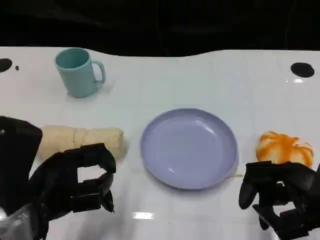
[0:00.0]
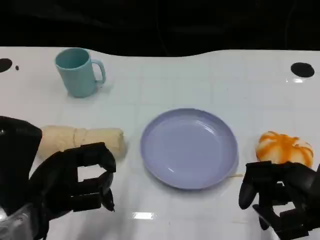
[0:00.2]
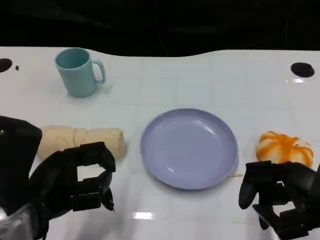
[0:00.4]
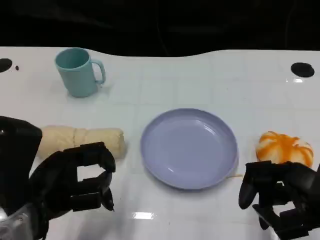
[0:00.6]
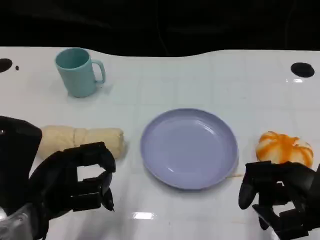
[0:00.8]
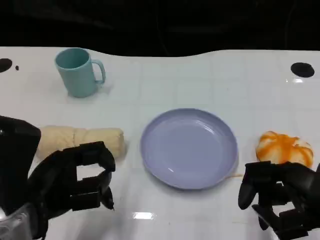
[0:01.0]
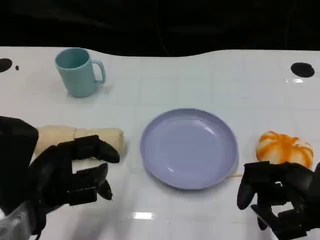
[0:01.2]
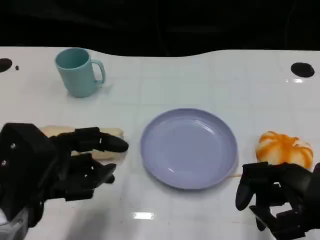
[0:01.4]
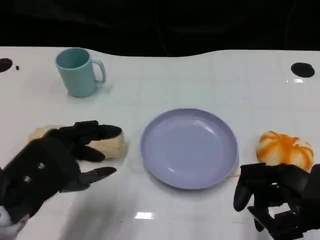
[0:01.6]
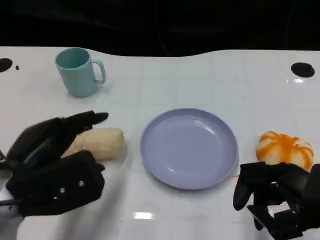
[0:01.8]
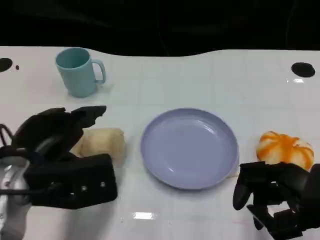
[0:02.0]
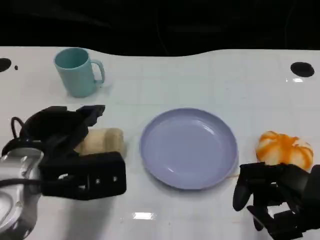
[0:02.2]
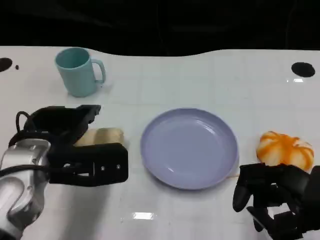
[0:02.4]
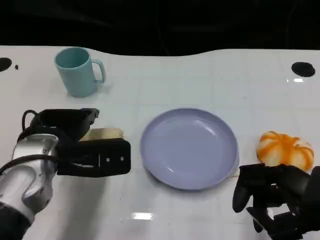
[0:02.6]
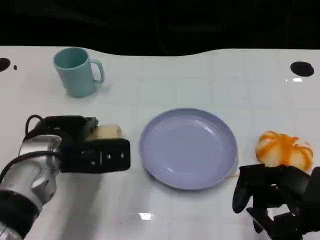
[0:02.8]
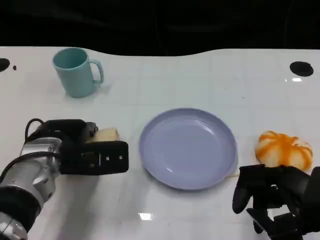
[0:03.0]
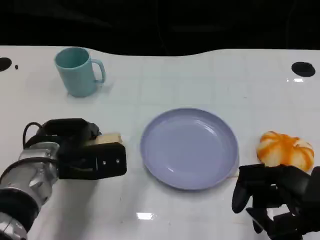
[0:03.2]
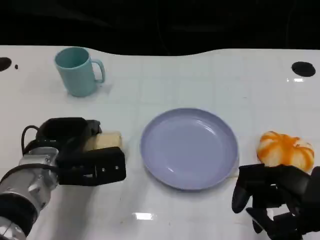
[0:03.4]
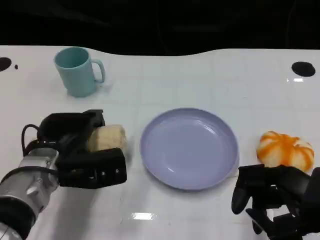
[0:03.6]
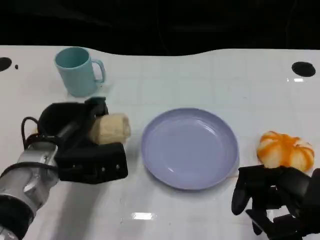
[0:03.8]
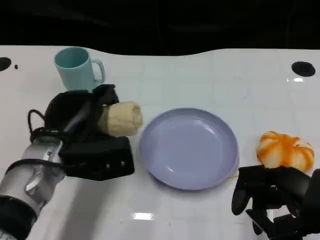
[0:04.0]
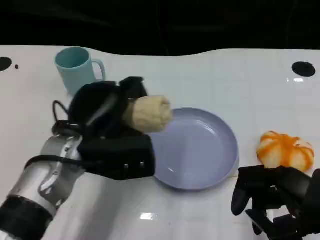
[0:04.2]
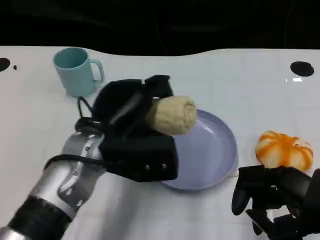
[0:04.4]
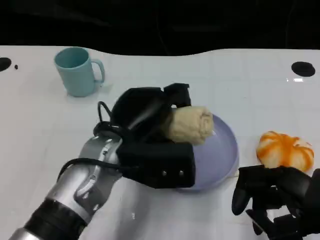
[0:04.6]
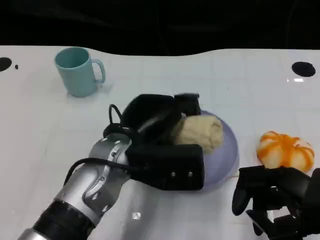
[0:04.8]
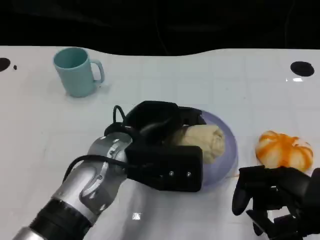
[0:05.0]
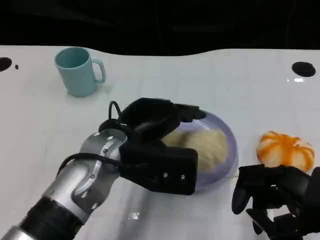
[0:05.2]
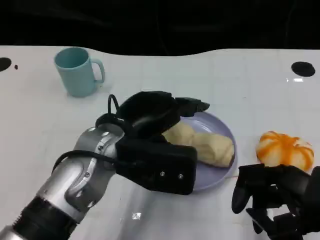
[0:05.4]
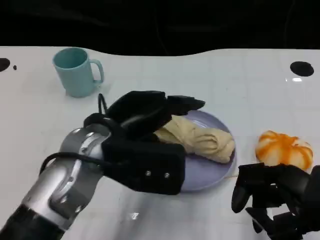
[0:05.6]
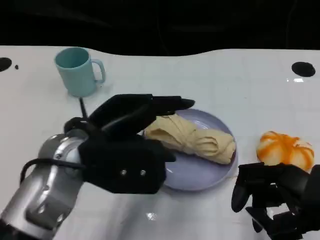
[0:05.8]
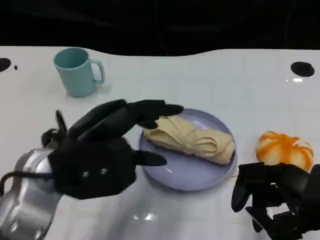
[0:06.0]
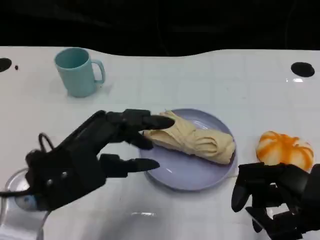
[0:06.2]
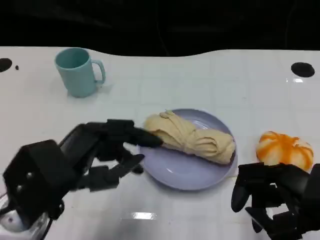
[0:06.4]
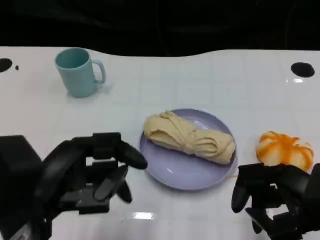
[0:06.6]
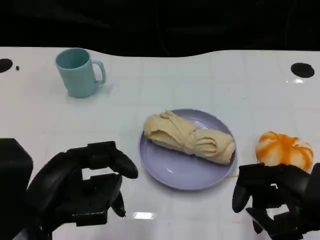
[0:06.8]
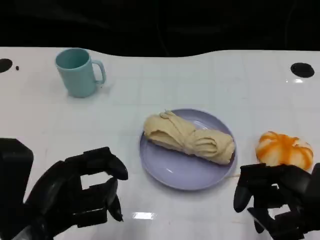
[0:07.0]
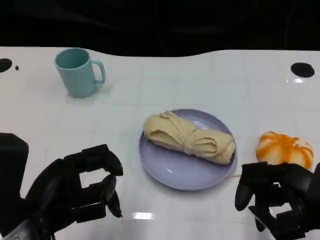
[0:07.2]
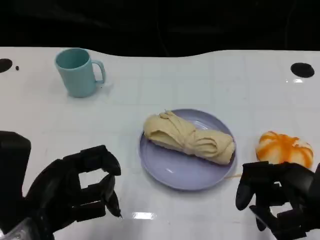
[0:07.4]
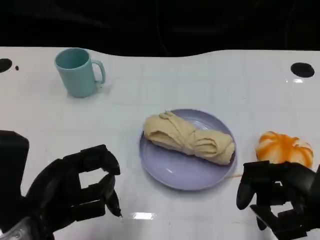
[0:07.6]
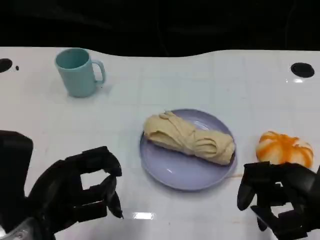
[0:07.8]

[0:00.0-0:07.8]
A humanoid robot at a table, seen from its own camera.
Task of the whole recording: Grasp the towel on the left side of the plate with the left hand and place it into the plate.
0:01.6 to 0:03.2: The left hand goes roughly 10 cm forward and downward.
0:03.2 to 0:04.6: The left hand moves to the right and upward, about 10 cm.
0:04.6 to 0:06.2: The left hand travels to the left and backward by roughly 10 cm.

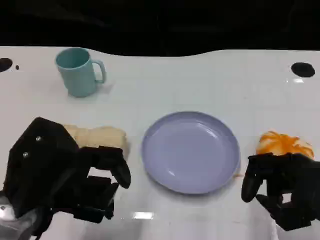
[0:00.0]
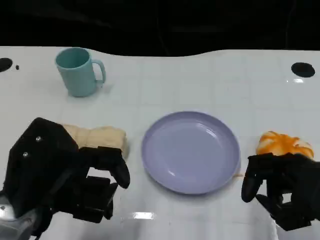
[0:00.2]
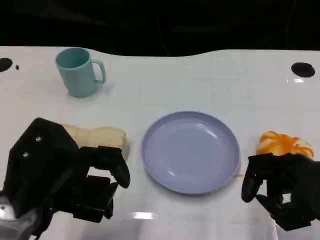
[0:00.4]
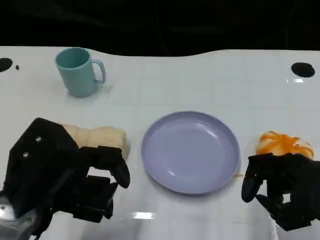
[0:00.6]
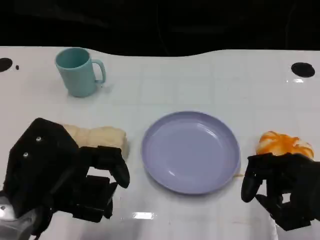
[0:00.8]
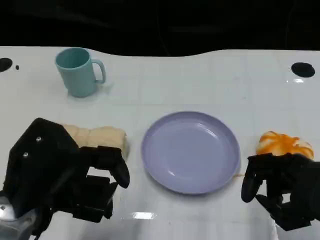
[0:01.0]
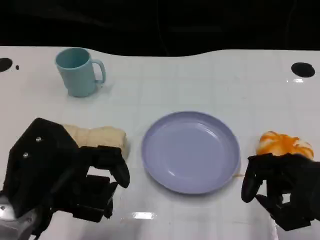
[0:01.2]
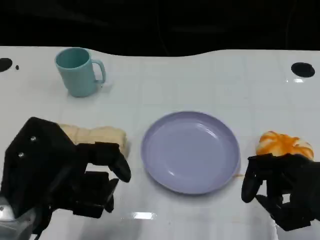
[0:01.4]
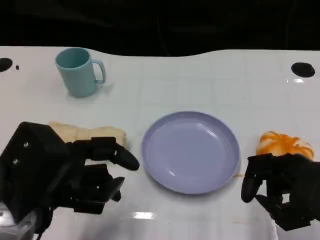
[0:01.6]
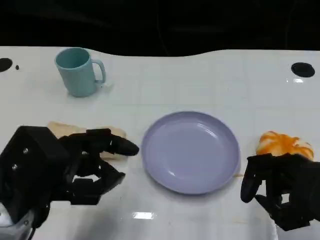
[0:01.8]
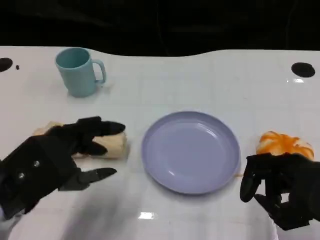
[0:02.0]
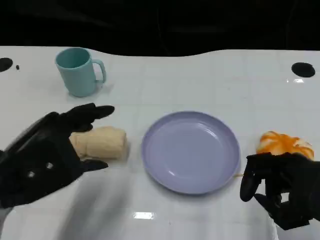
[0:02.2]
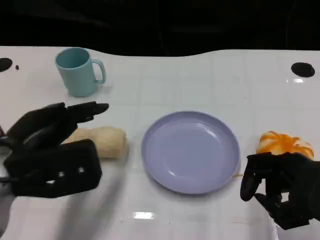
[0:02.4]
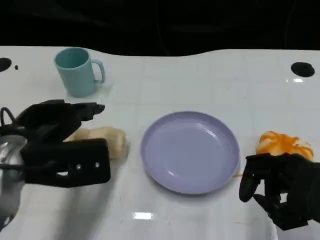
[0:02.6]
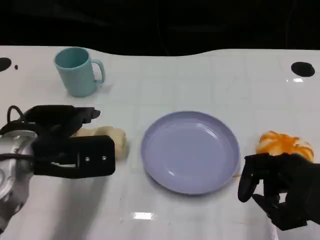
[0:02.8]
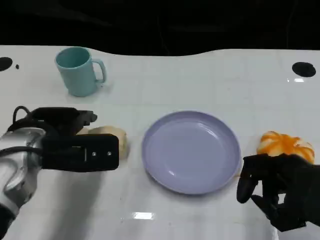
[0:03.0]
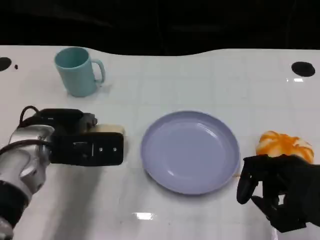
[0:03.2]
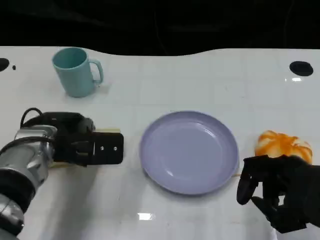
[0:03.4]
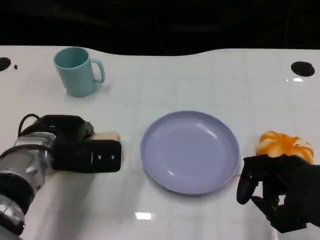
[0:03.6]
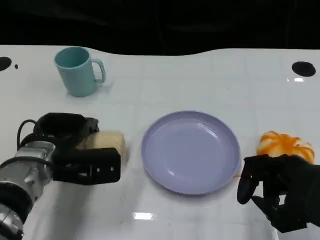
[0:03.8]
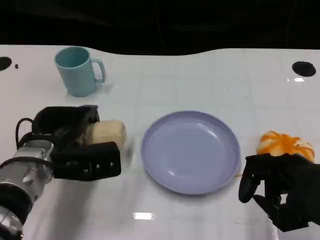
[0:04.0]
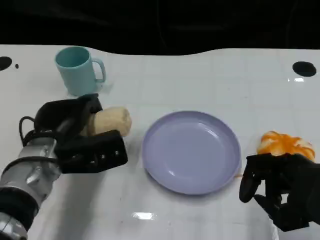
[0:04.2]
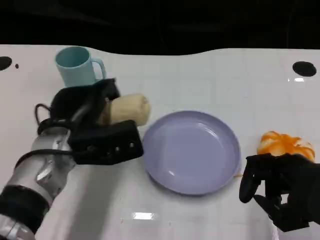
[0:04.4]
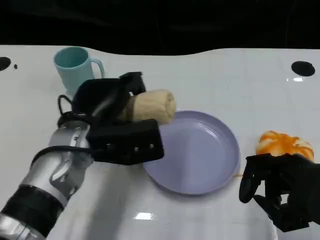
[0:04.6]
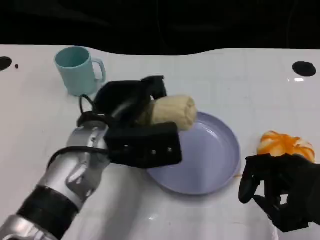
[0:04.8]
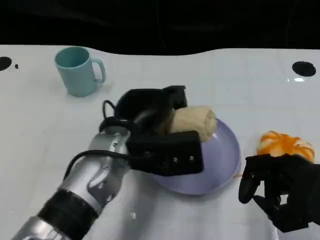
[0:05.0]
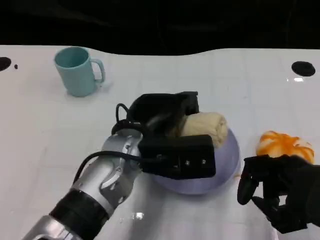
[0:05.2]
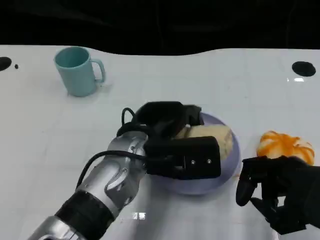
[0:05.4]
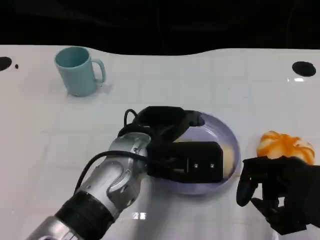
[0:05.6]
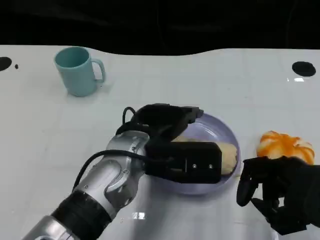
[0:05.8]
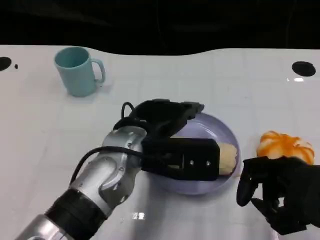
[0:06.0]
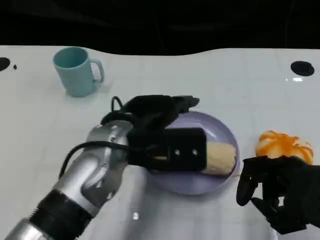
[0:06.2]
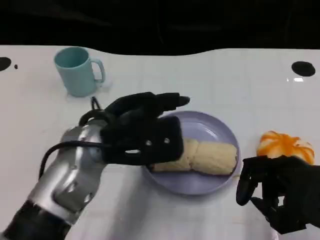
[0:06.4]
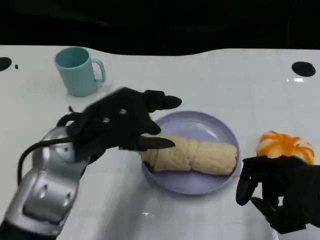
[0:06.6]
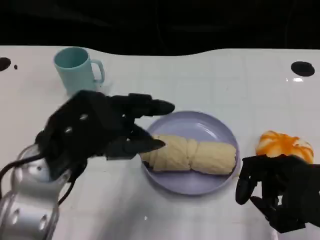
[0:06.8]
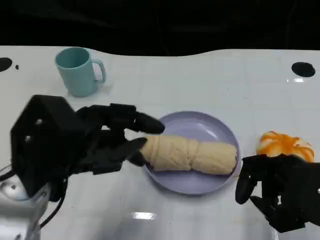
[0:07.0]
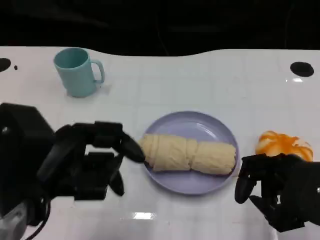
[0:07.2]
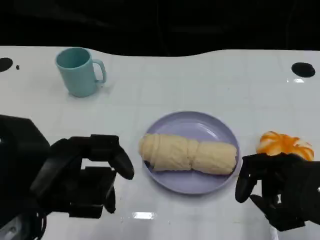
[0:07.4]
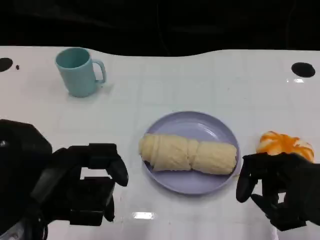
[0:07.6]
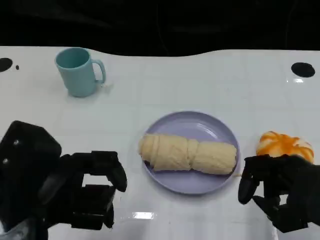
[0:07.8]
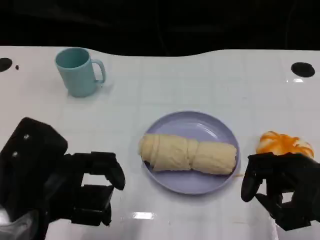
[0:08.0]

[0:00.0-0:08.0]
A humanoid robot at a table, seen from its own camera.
Task of the whole recording: Grasp the towel on the left side of the plate with the left hand and place it into the plate.
0:00.0 to 0:01.6: The hands stay close to where they were, moving slightly.
0:01.6 to 0:03.2: The left hand moves forward, about 10 cm.
0:03.2 to 0:04.8: The left hand goes some 10 cm to the right.
0:06.4 to 0:08.0: The left hand goes some 10 cm to the left and backward.

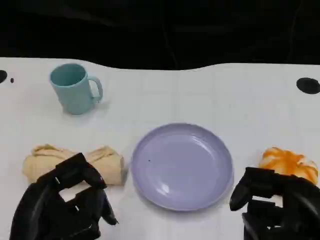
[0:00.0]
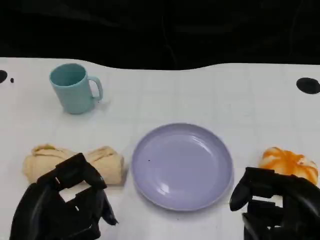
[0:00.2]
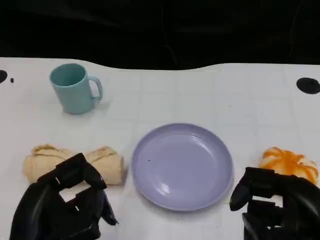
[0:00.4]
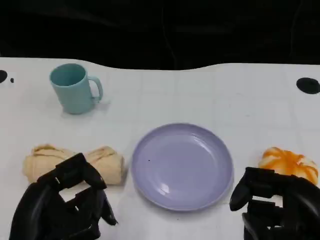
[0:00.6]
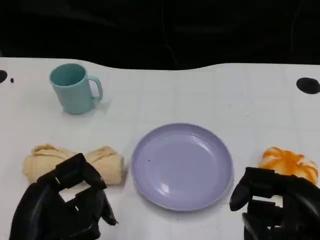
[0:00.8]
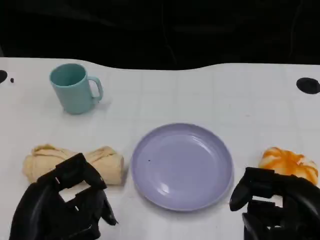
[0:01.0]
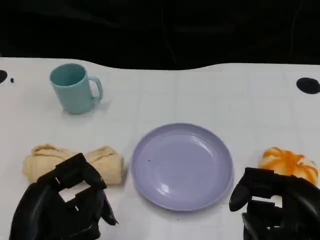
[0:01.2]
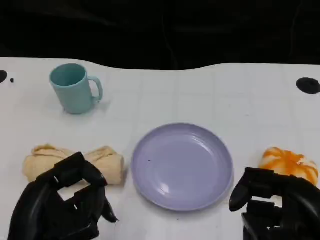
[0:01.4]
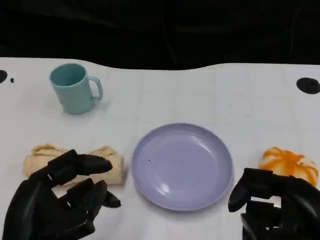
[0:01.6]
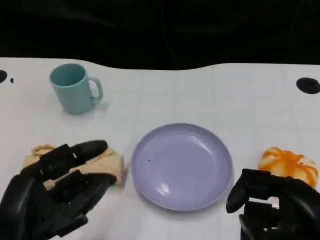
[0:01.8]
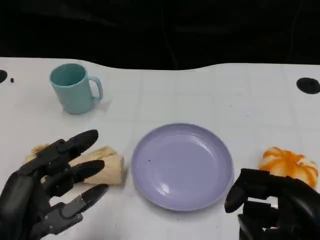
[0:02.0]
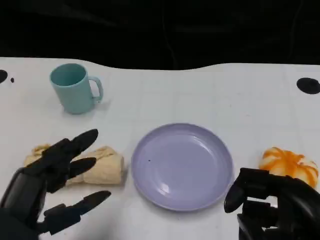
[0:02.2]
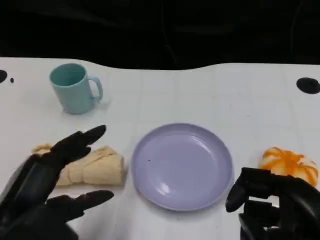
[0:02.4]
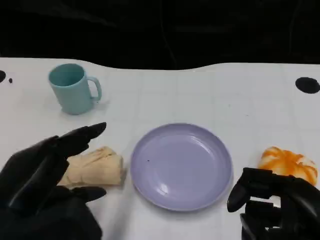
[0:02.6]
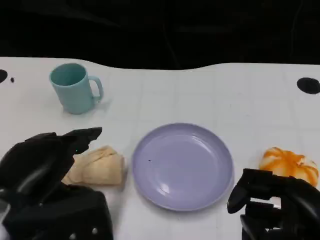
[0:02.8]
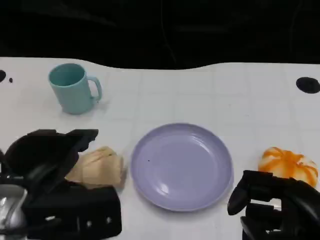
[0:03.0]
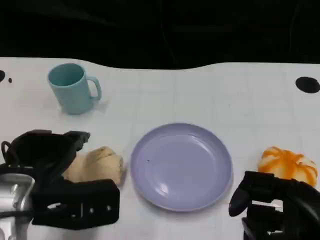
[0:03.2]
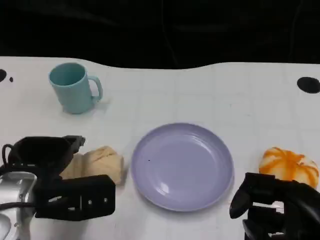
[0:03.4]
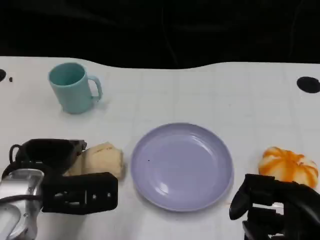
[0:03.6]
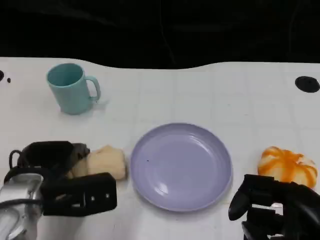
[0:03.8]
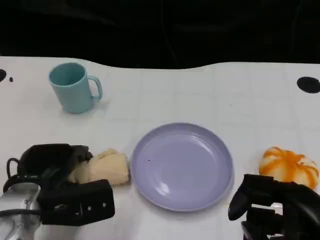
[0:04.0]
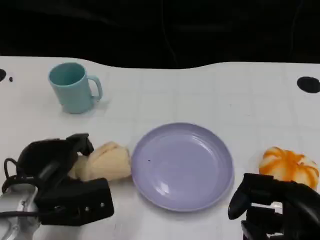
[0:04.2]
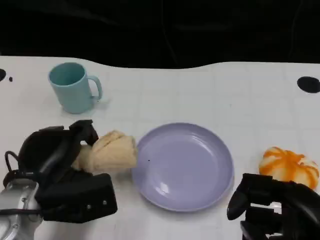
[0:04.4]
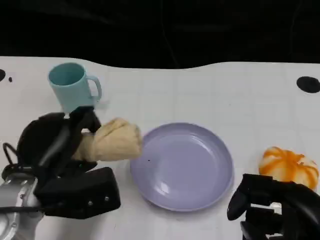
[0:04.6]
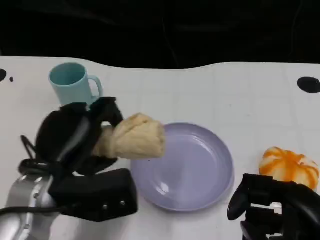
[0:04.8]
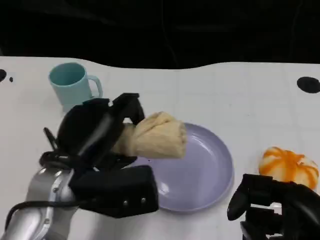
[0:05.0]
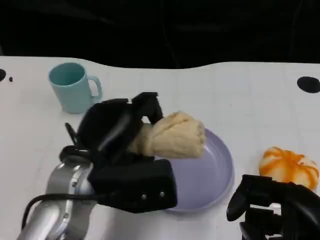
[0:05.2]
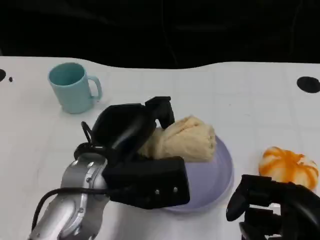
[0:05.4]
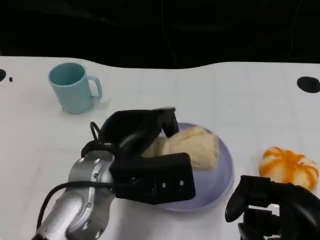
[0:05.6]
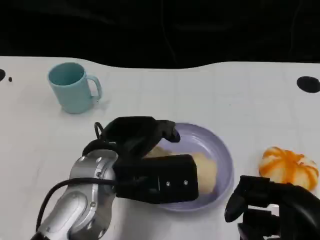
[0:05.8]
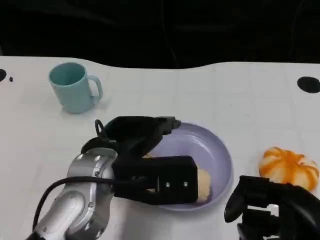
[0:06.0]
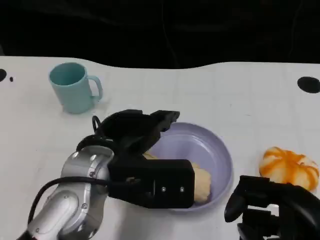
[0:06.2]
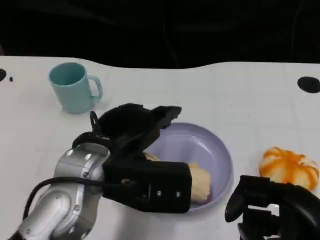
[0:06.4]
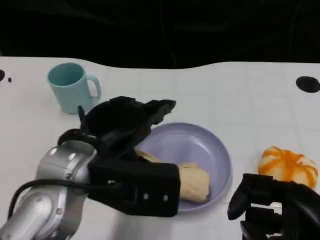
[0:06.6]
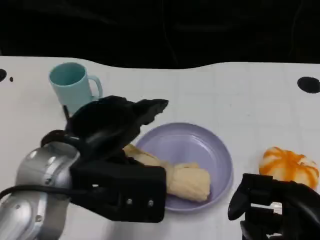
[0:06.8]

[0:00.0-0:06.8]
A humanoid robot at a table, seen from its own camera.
Task of the whole recording: Grasp the towel on the left side of the plate with the left hand and place it into the plate.
0:00.0 to 0:01.4: The two hands keep their place.
0:01.4 to 0:02.8: The left hand moves approximately 5 cm.
0:02.8 to 0:04.0: The left hand heads downward and forward, covering roughly 10 cm.
0:04.0 to 0:05.4: The left hand shifts approximately 10 cm to the right and upward.
0:05.4 to 0:06.8: The left hand travels upward by some 5 cm.
